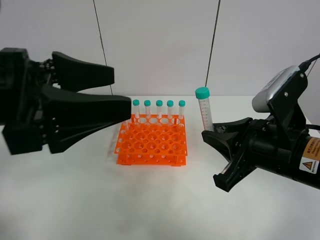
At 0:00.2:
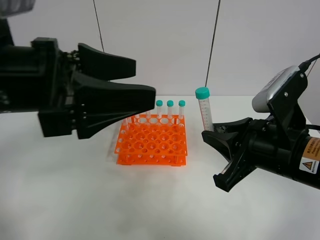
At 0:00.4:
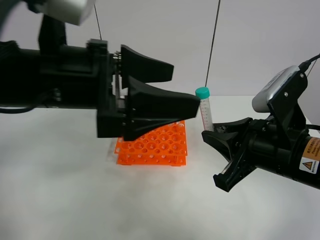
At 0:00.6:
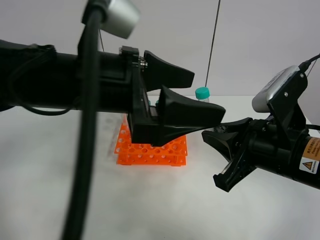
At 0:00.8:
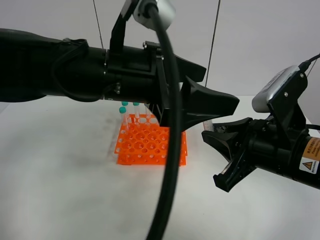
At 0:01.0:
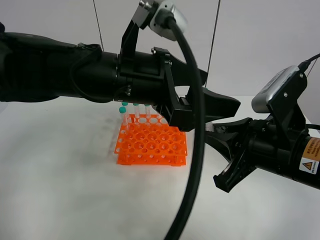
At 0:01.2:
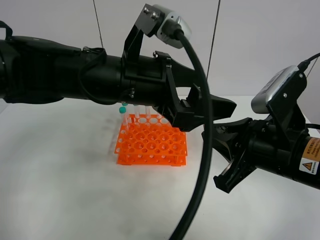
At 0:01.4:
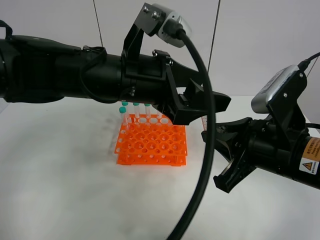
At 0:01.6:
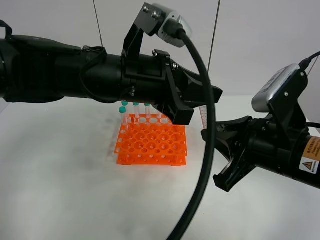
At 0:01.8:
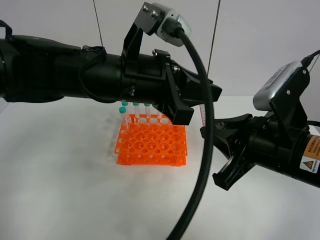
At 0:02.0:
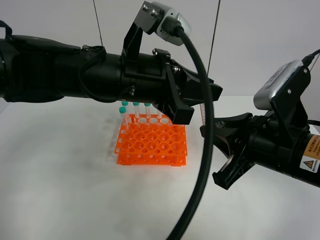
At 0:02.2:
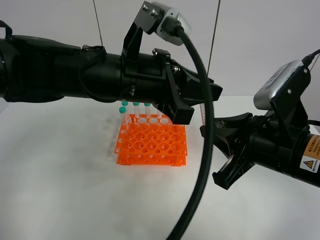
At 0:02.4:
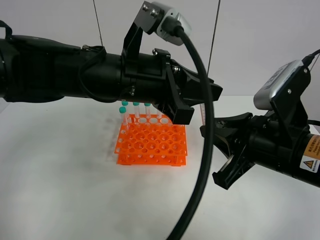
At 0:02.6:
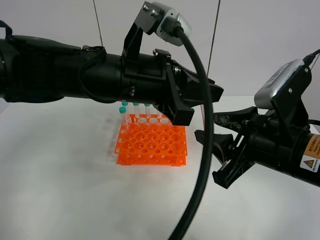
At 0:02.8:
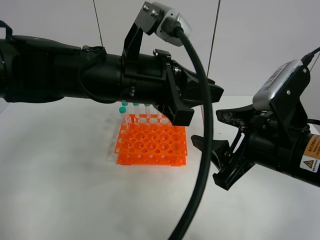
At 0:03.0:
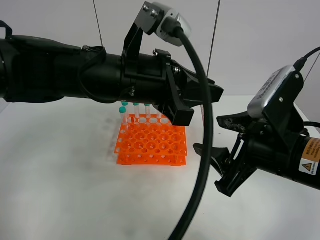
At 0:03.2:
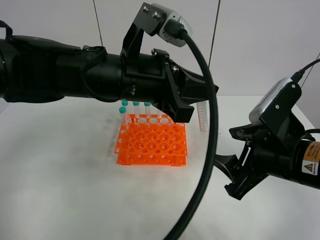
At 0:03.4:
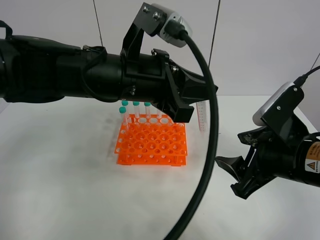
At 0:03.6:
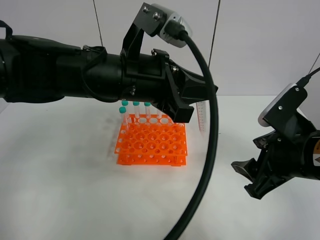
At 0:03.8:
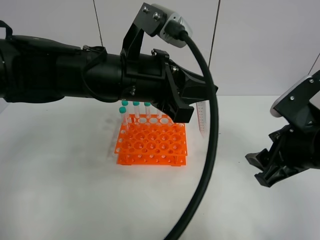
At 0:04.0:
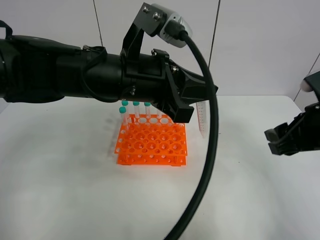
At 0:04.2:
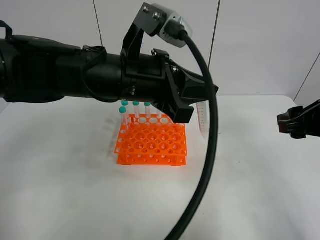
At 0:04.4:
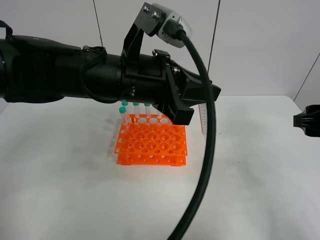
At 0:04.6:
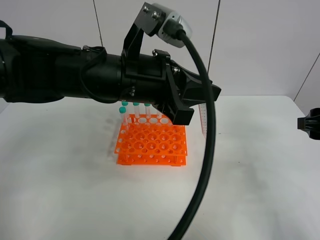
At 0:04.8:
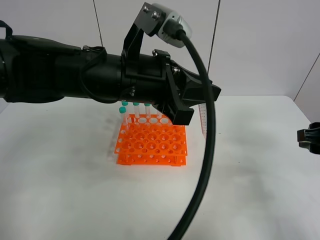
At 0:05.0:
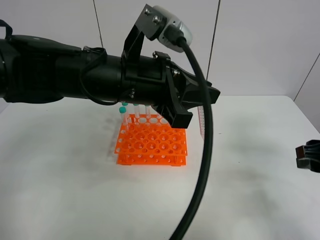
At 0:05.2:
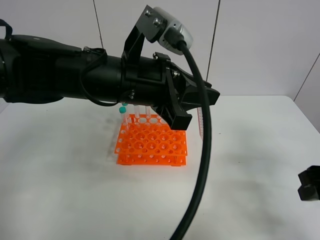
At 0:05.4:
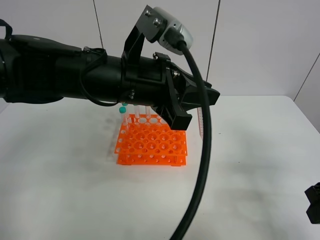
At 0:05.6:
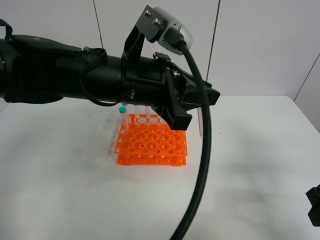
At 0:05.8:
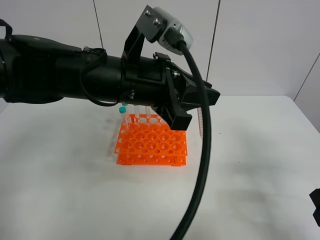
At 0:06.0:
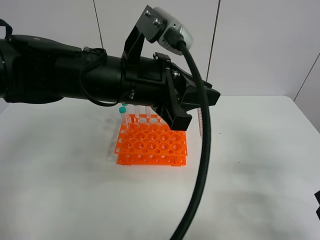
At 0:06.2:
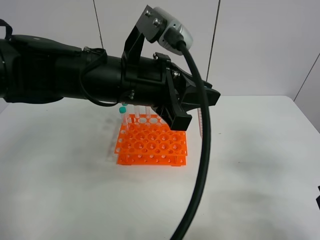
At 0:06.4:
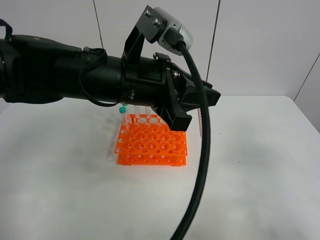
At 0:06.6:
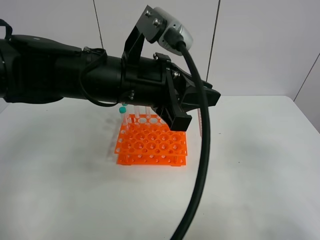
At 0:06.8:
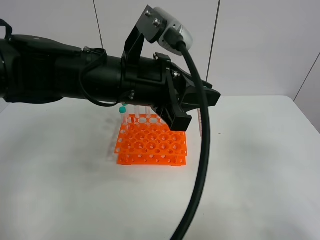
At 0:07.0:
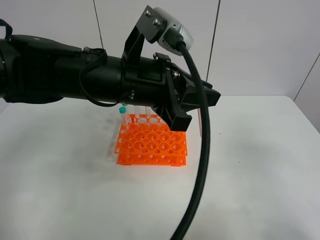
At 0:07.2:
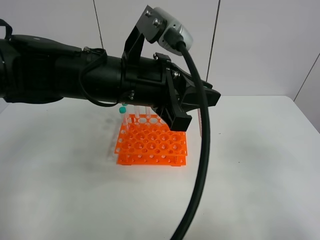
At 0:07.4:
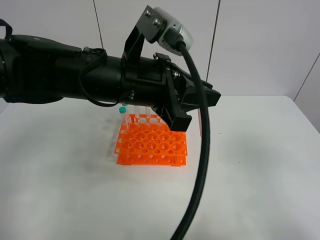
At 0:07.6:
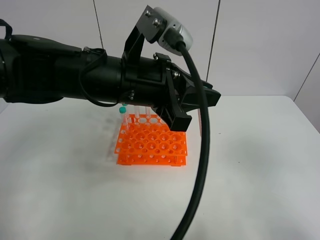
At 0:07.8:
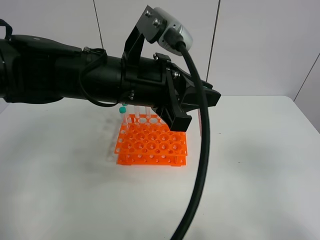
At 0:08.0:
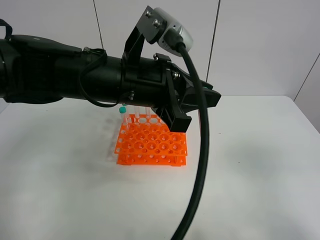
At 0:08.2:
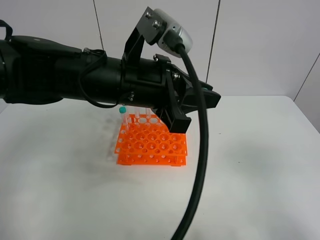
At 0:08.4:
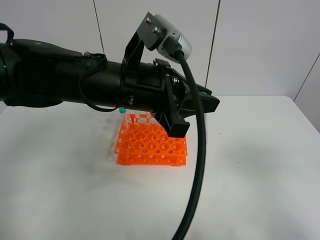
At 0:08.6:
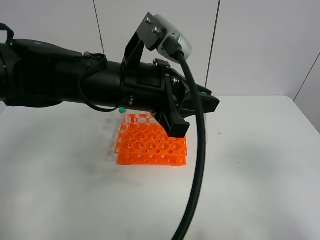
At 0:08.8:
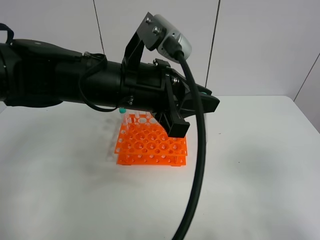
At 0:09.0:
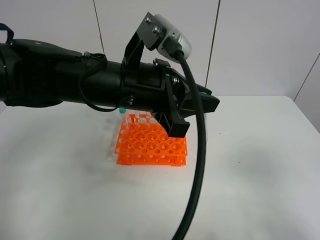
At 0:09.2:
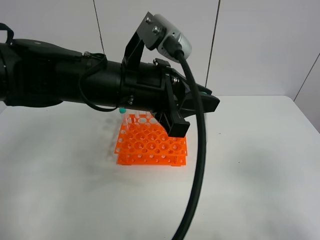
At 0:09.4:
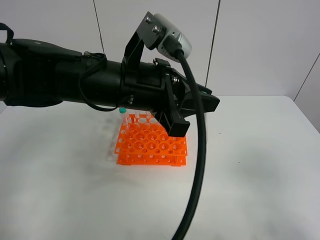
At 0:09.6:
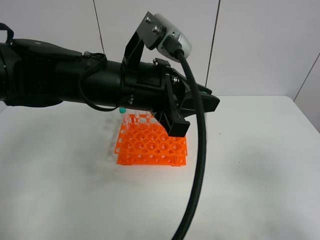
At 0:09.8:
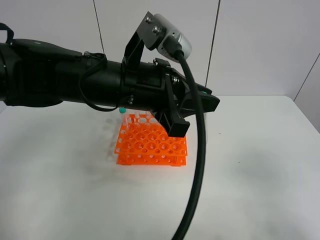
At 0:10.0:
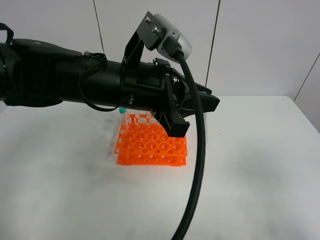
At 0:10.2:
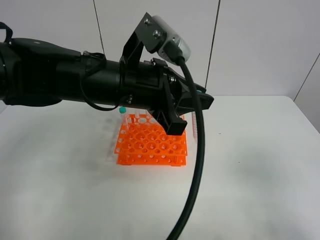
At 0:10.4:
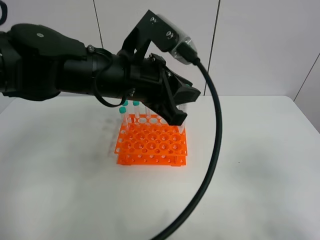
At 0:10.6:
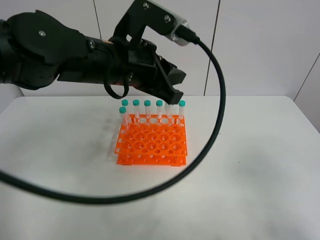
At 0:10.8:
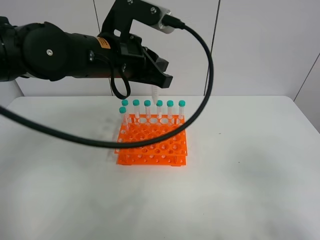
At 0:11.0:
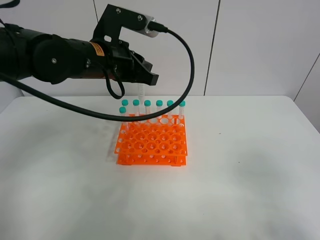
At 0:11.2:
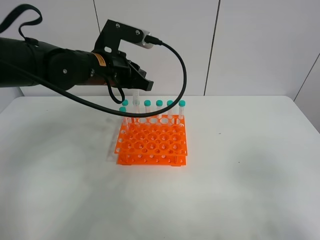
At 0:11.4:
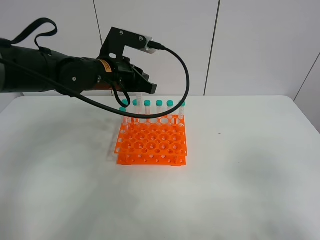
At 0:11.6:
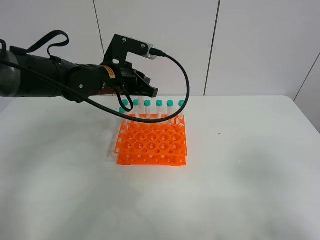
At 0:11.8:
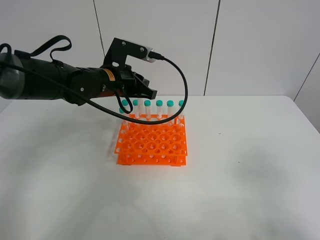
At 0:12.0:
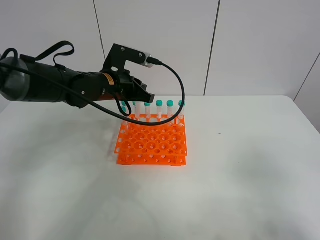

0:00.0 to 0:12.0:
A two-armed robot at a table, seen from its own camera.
Task of the whole recording: Put the test tube on the table back onto the test tube rack.
Step, 0:00.0 to 0:02.8: Move the test tube from the right gripper to the left gripper.
0:00.0 to 0:01.6: The left gripper travels to the right and forward by roughly 15 cm, and closes up.
0:01.6 to 0:03.0: The right gripper opens.
0:03.0 to 0:04.4: The right gripper is displaced to the right by about 15 cm.
0:04.4 to 0:06.0: The right gripper goes about 5 cm backward.
0:06.0 to 0:07.6: The right gripper is displaced backward and upward by about 15 cm.
0:07.6 to 0:10.4: The grippers move only a little.
0:10.4 to 0:12.0: The left gripper moves forward, downward and to the left, roughly 15 cm.

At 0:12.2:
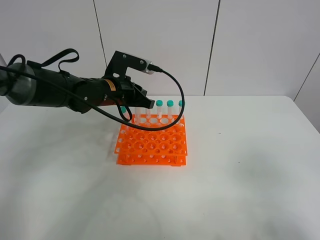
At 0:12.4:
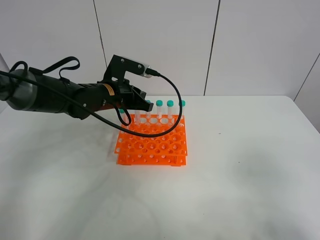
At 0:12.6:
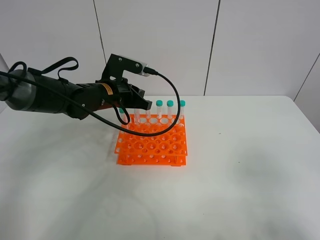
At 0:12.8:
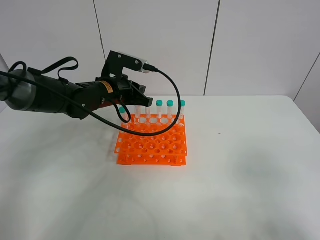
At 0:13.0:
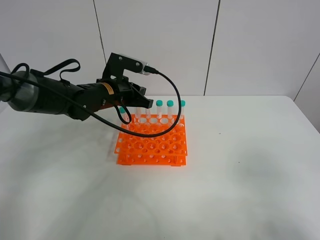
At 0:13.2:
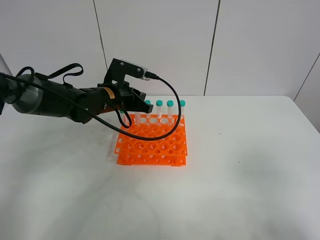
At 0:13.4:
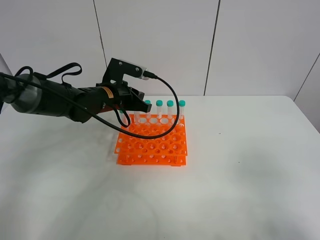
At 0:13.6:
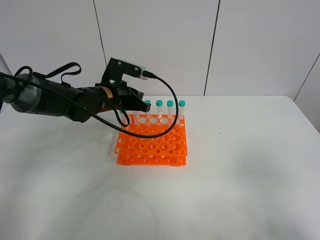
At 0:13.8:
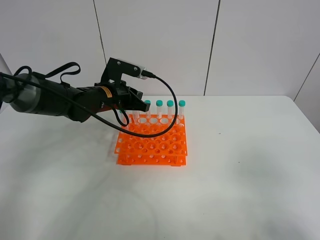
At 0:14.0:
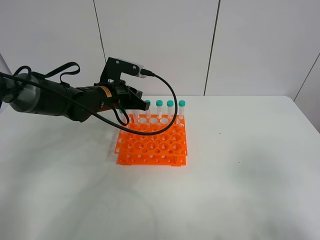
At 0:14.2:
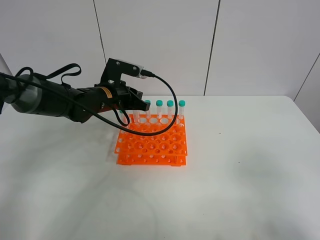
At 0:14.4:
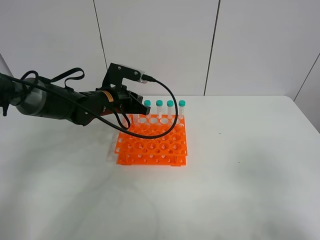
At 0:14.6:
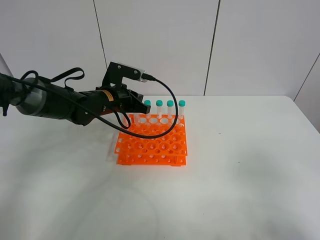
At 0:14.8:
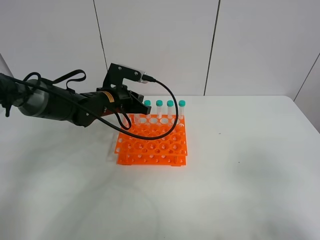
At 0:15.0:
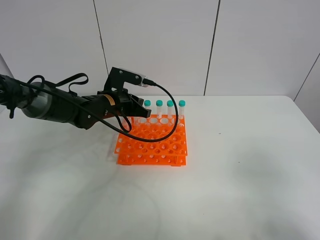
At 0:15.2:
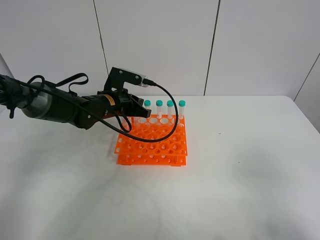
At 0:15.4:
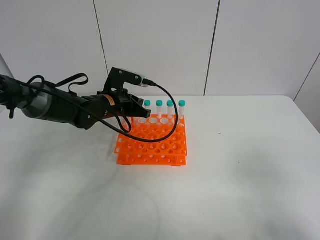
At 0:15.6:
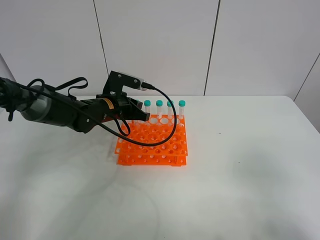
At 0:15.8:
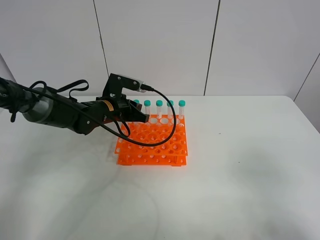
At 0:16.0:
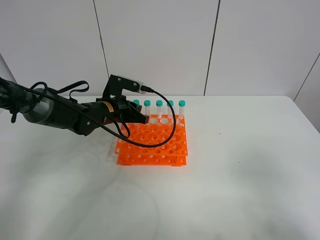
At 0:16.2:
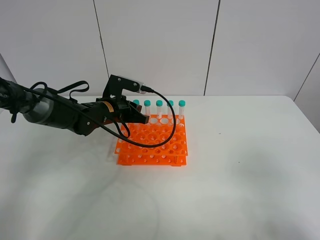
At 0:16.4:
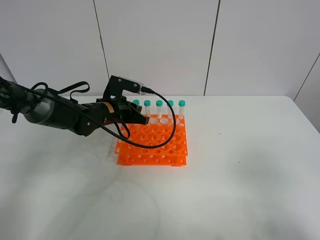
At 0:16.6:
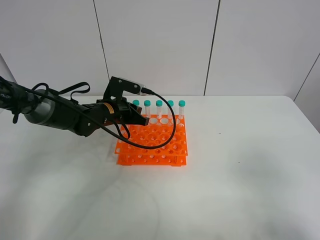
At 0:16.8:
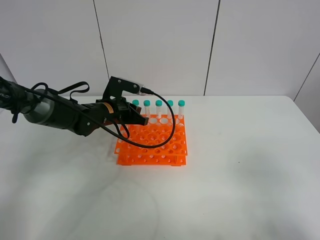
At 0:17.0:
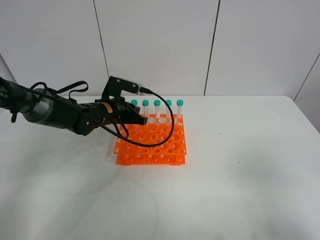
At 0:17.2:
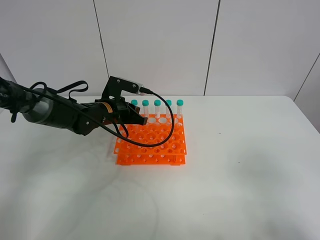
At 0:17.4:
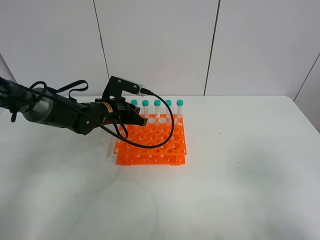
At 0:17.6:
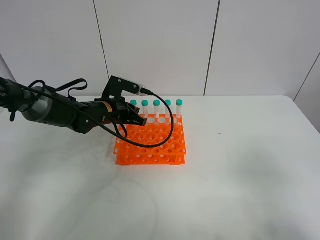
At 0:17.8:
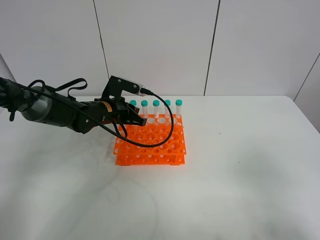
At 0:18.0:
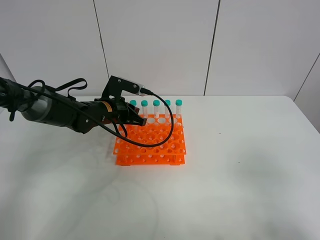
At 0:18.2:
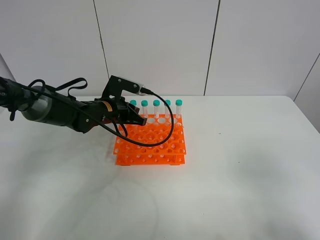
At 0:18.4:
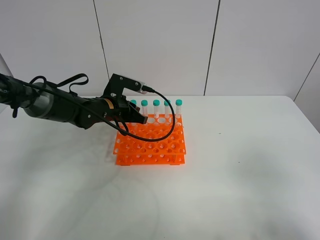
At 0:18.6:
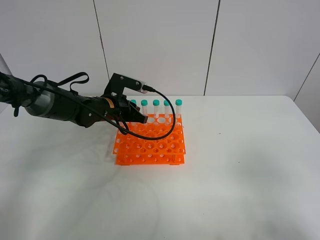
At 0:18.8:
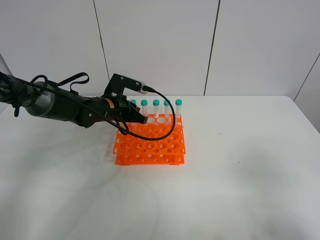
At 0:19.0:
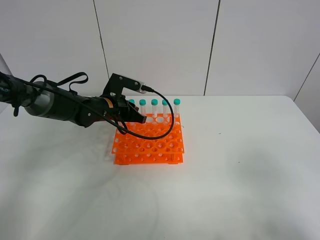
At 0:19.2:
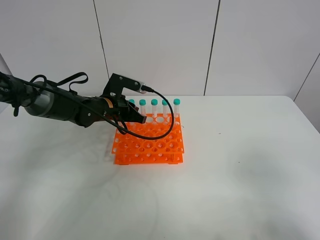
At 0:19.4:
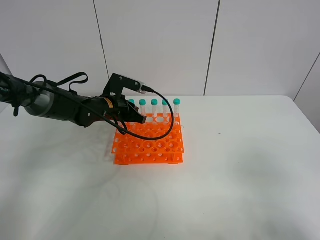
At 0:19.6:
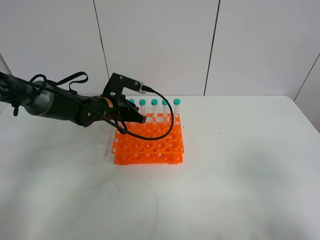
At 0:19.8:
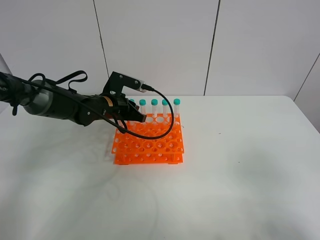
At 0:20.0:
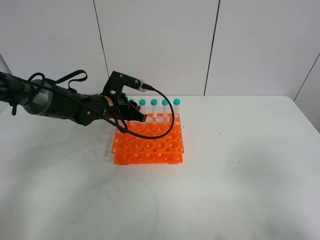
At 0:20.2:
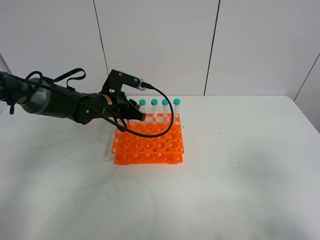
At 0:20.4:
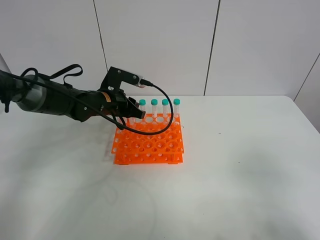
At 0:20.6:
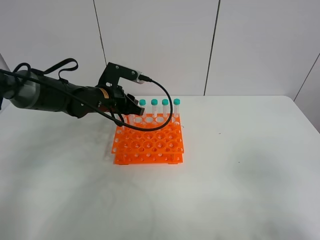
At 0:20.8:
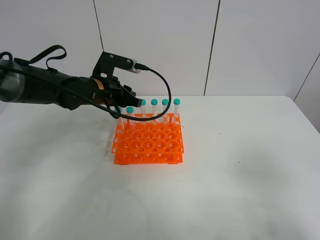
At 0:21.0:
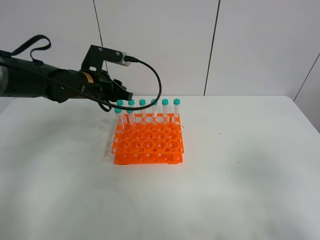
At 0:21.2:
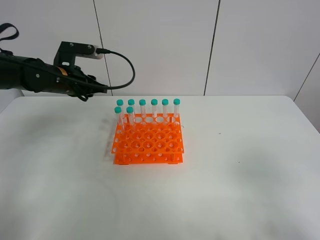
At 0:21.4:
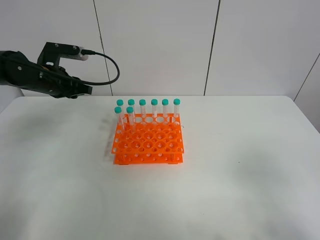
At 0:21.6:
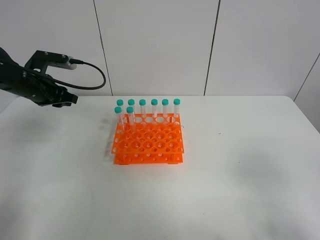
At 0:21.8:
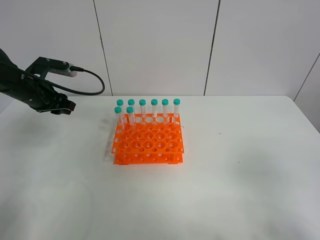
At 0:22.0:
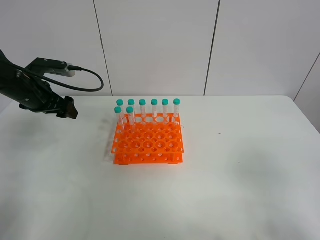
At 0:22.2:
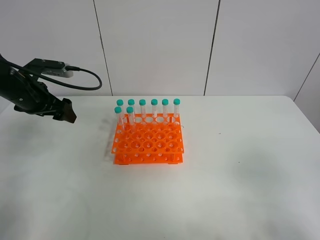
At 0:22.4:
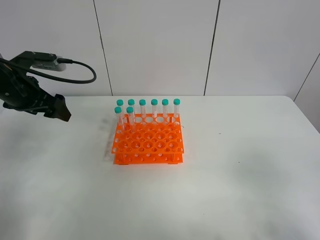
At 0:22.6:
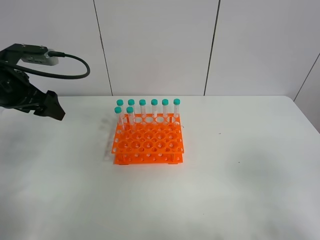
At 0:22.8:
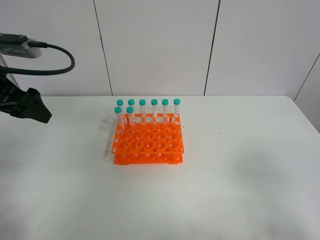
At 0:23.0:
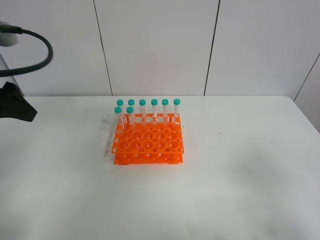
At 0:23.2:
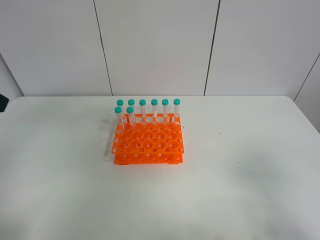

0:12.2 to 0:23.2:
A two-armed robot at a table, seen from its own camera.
Task of the whole recording: Put the test tube on the table back onto the test tube rack.
Step, 0:12.2 to 0:19.8: Place the test tube on the test tube rack with the left gripper.
0:12.2 to 0:15.4: There are only small adjustments of the grippers.
0:15.4 to 0:17.0: The grippers move only a little.
0:17.0 to 0:18.4: Both grippers stay about where they are.
0:18.4 to 0:20.0: Neither gripper changes place.
0:20.0 to 0:21.6: The left gripper heads to the left and upward, covering roughly 15 cm.
0:21.6 to 0:23.2: The left gripper moves backward and upward, some 30 cm, and opens.
